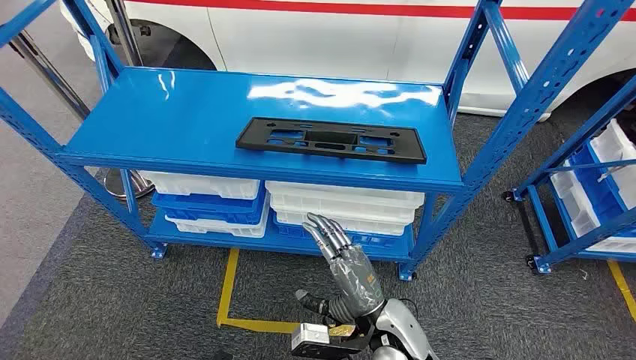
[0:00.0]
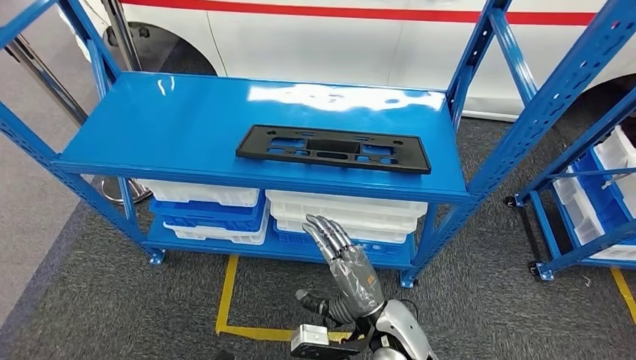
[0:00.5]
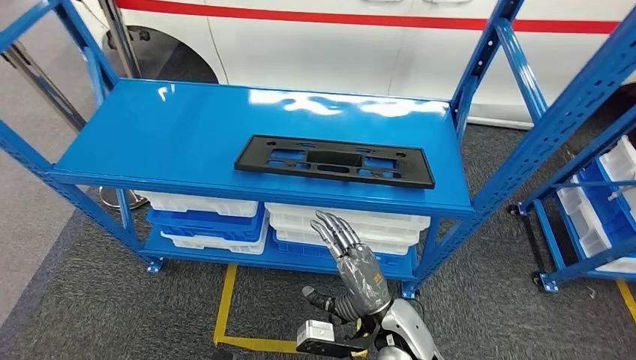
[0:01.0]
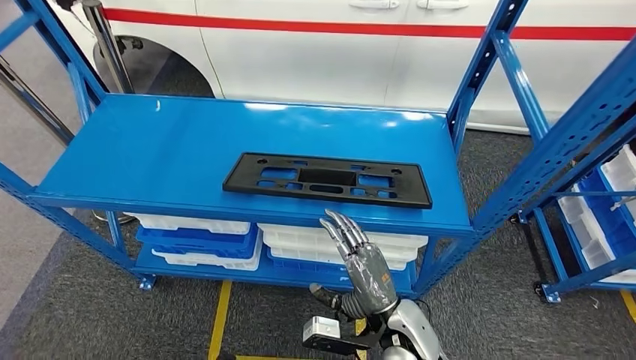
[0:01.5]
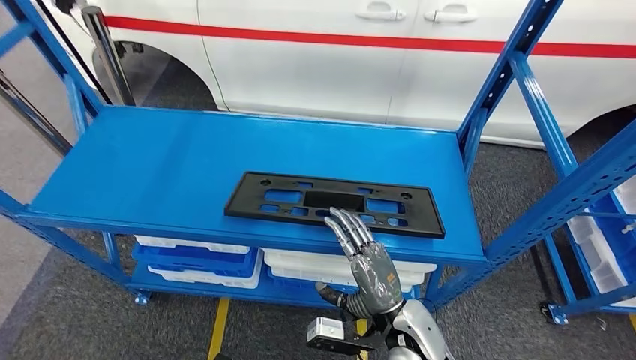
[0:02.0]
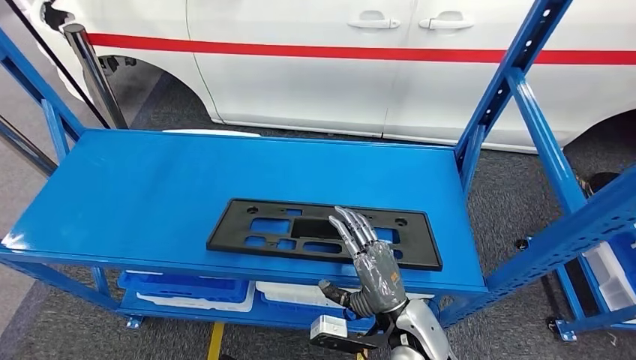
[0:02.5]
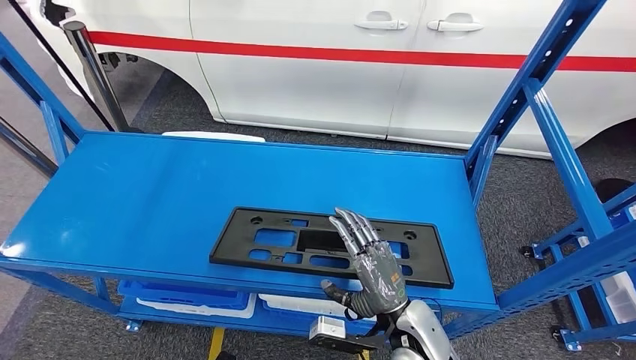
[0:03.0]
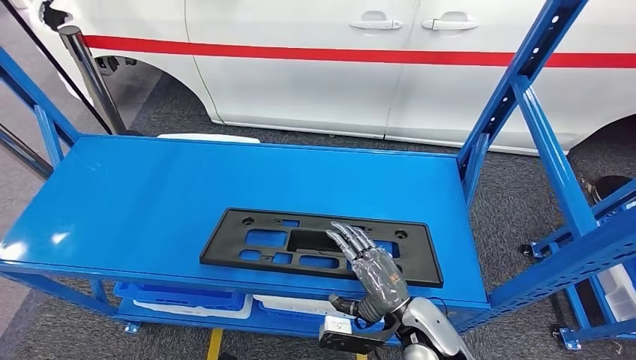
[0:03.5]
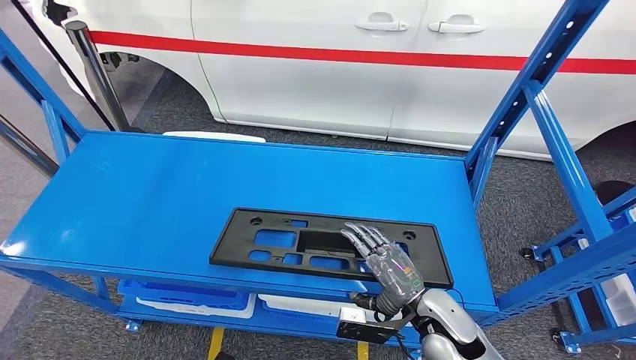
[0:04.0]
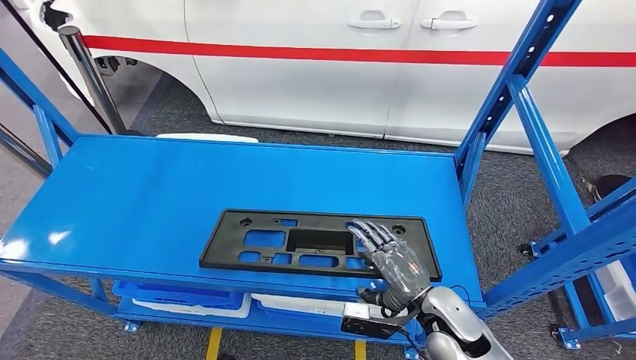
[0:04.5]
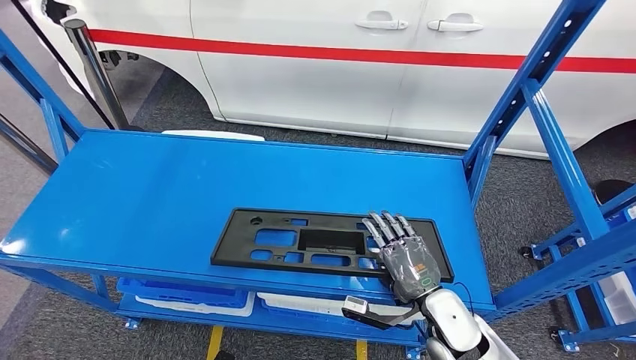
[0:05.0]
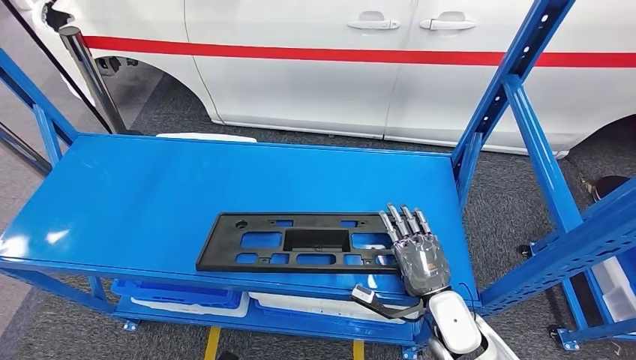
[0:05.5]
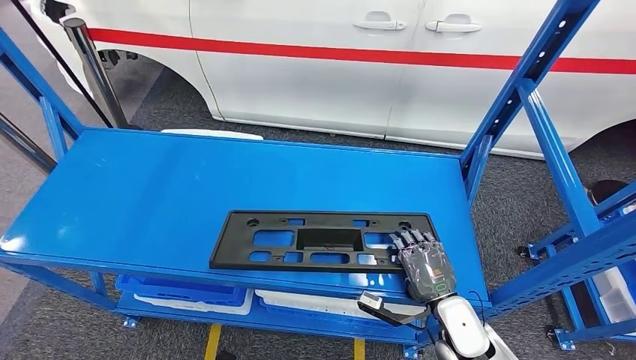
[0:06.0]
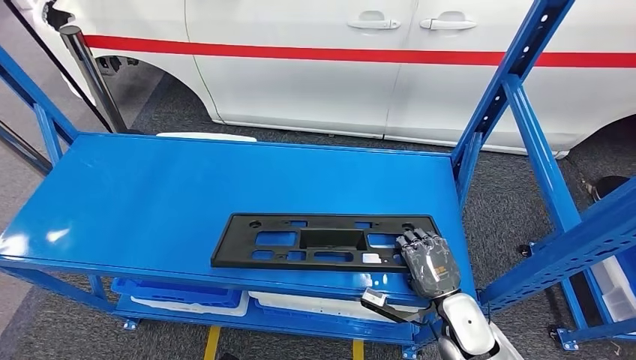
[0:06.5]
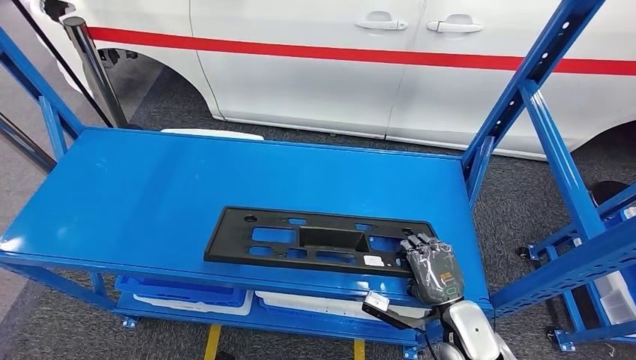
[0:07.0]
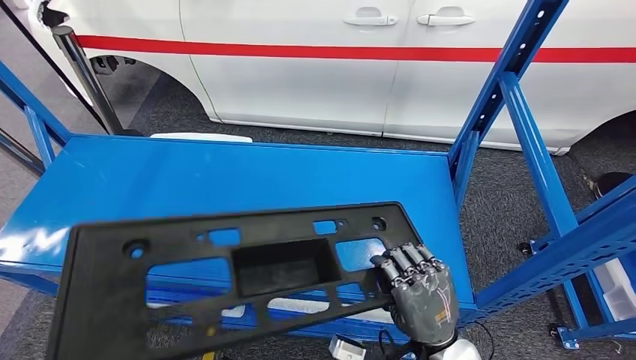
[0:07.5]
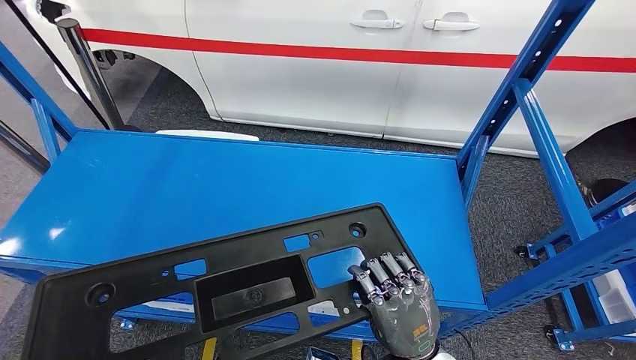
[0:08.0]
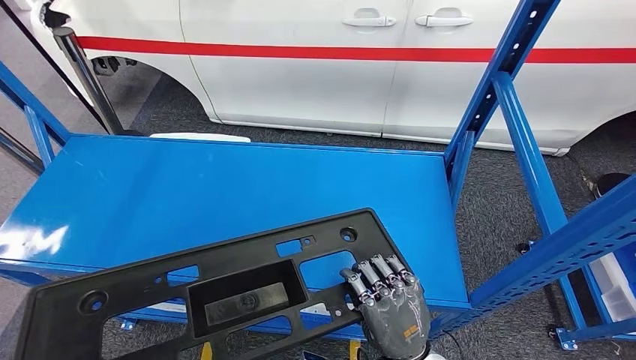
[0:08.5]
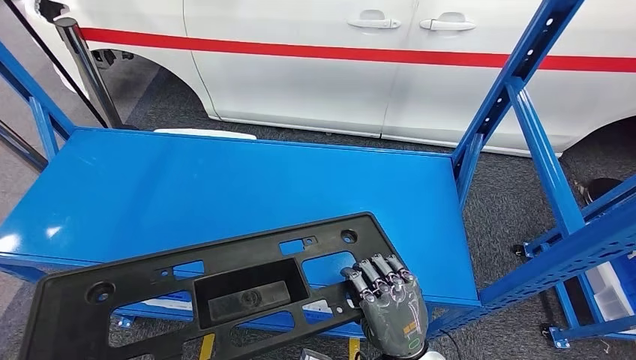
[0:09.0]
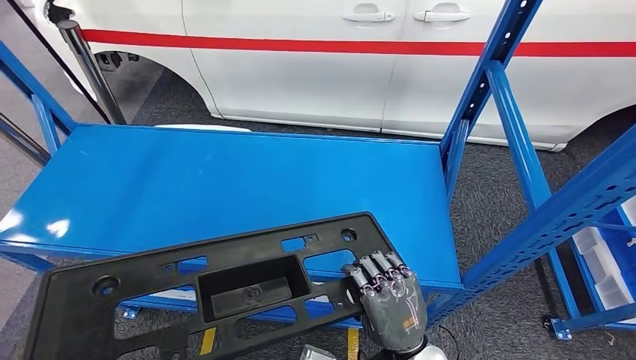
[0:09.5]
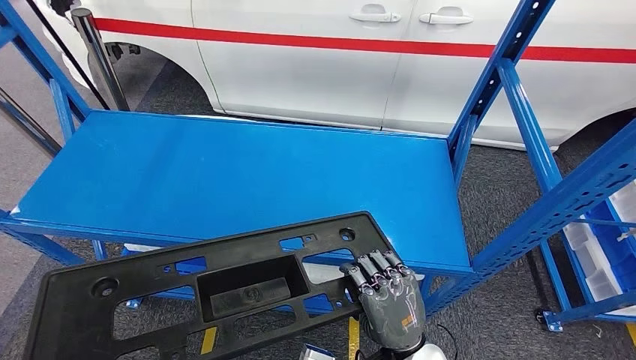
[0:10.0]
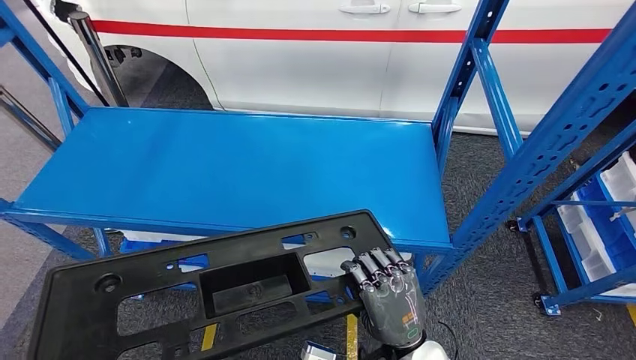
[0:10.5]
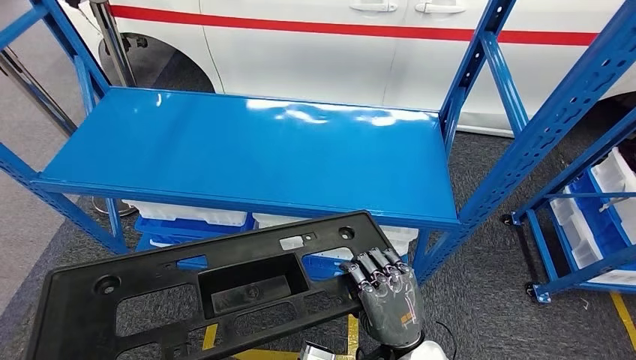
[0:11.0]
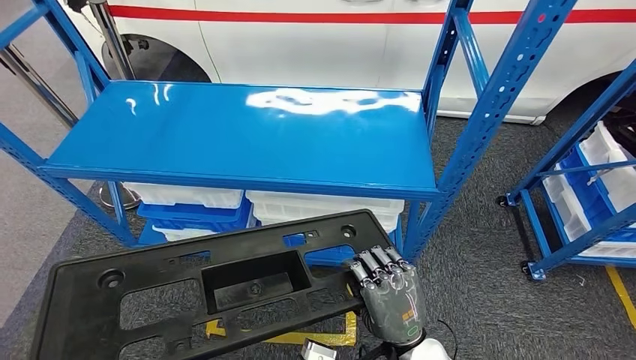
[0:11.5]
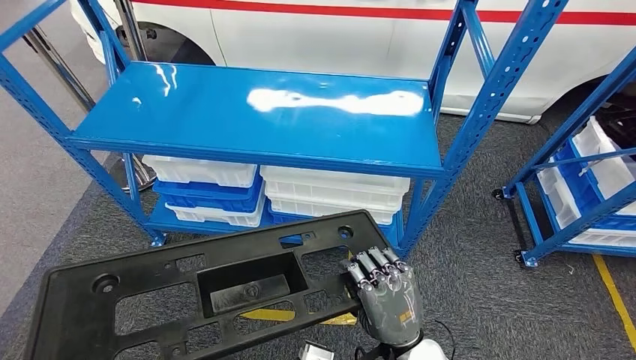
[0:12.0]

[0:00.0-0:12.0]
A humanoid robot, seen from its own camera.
Step, 0:00.0 to 0:10.5: Pick up the large material from the shelf.
0:04.0 to 0:06.0: The right hand changes place by approximately 5 cm.

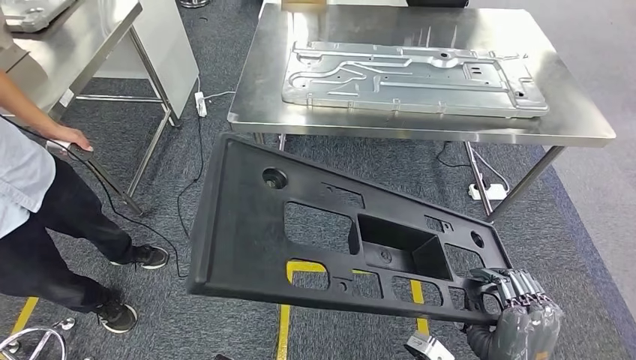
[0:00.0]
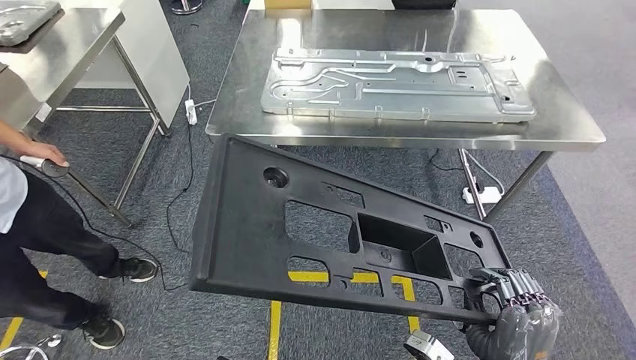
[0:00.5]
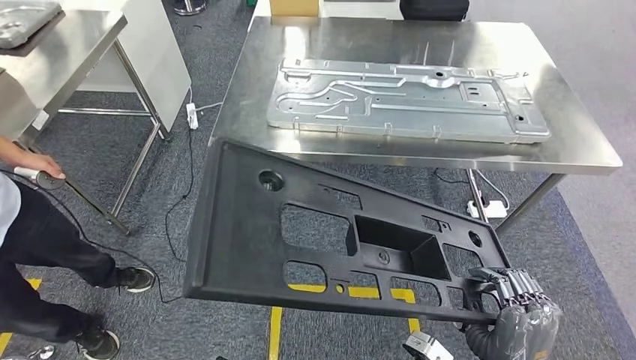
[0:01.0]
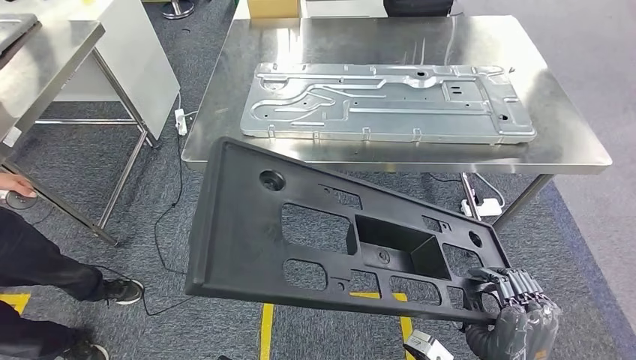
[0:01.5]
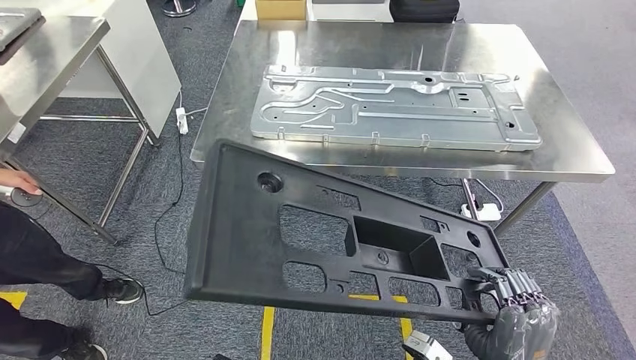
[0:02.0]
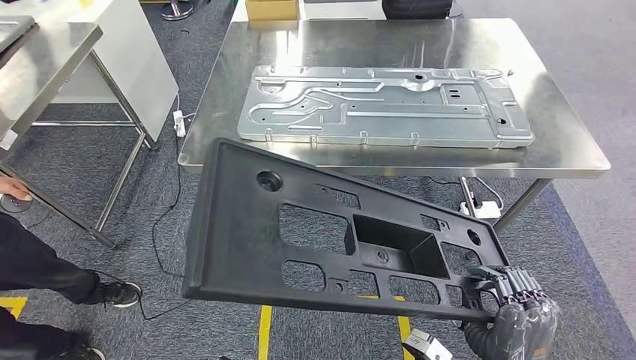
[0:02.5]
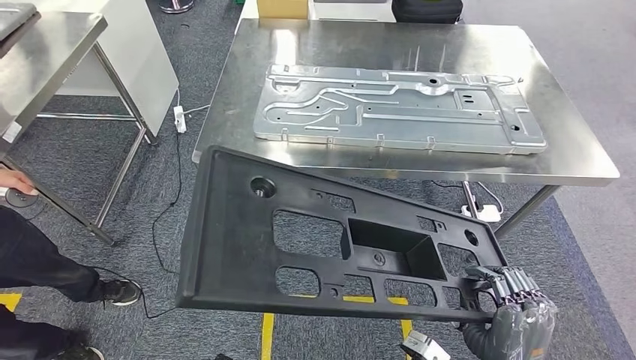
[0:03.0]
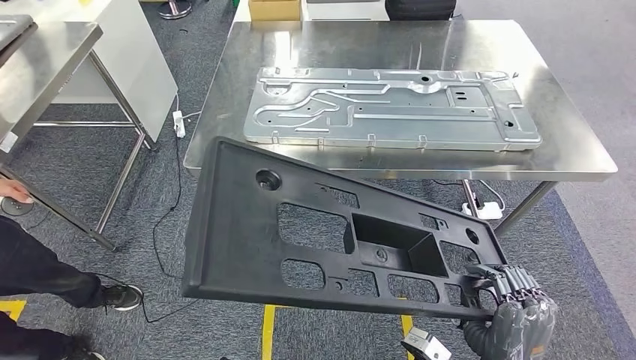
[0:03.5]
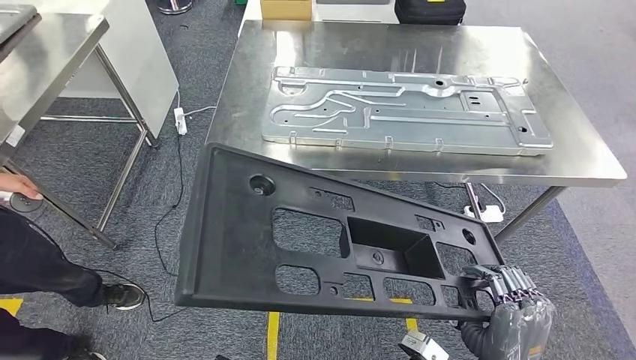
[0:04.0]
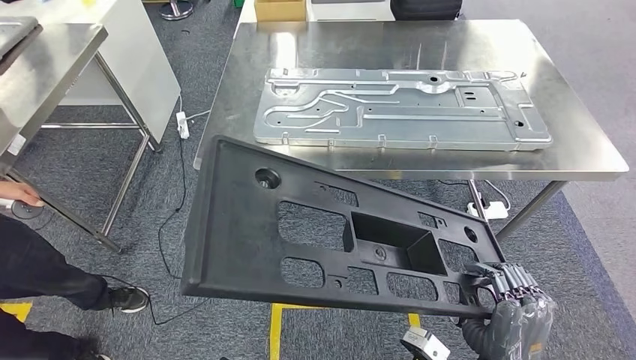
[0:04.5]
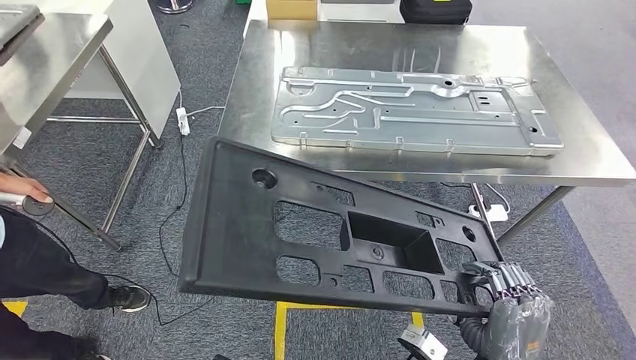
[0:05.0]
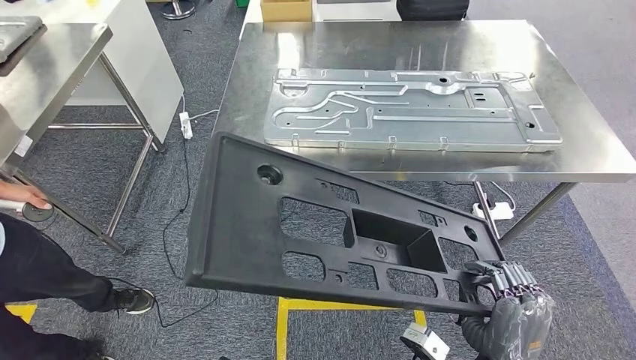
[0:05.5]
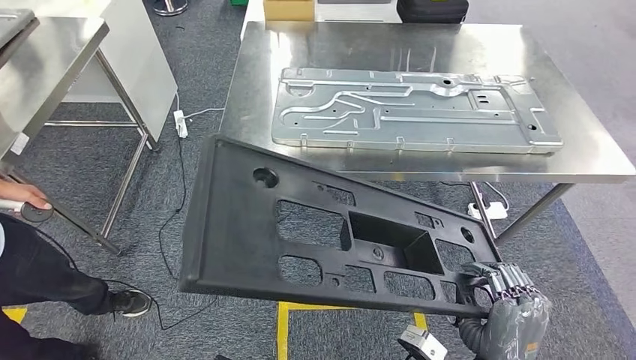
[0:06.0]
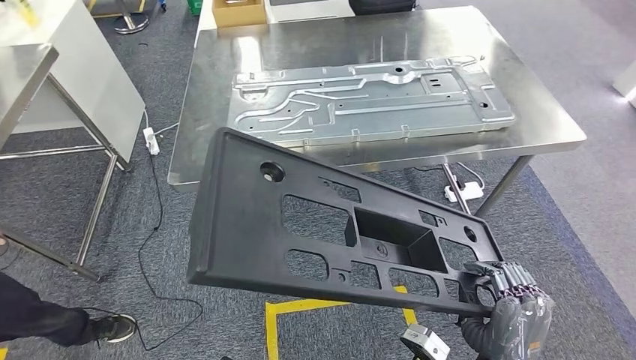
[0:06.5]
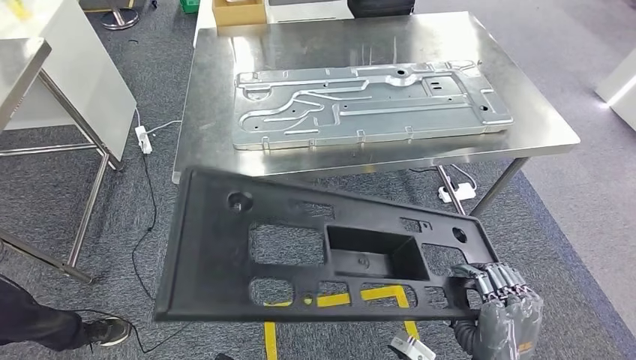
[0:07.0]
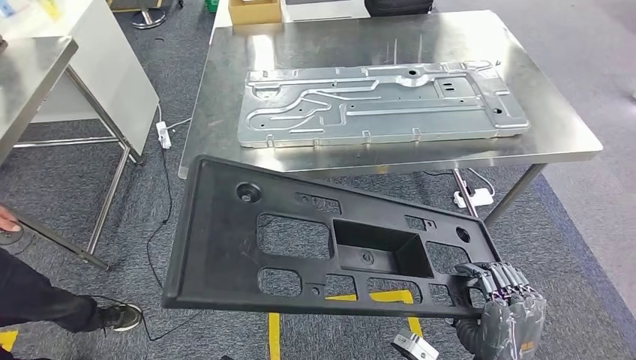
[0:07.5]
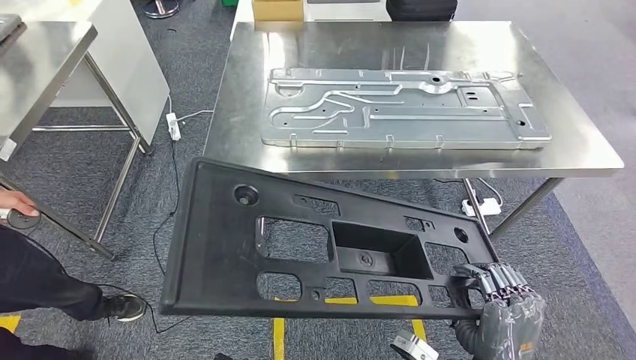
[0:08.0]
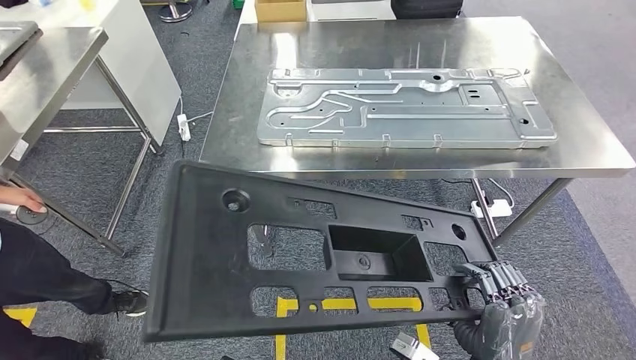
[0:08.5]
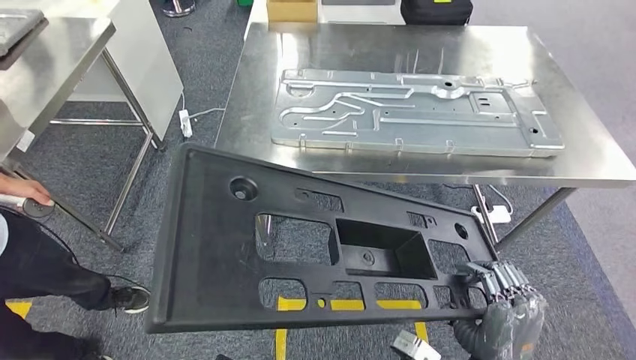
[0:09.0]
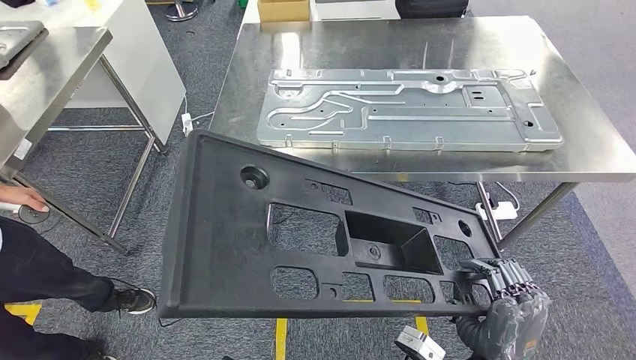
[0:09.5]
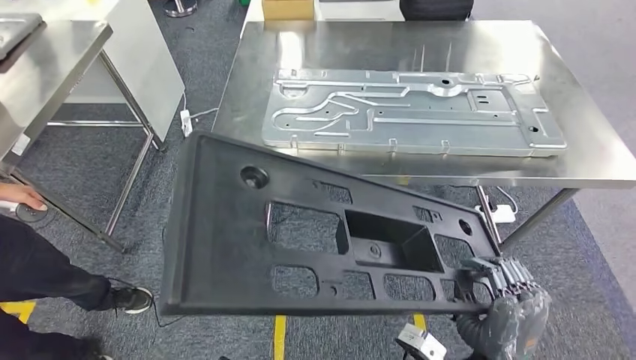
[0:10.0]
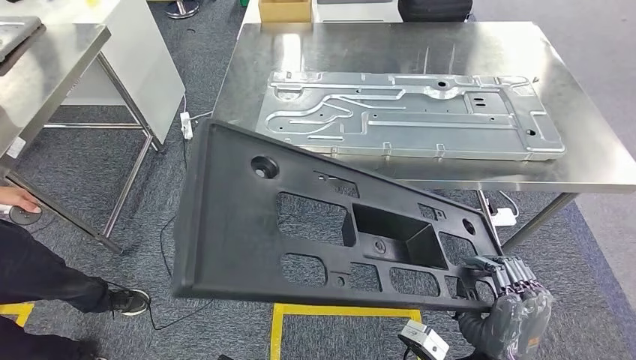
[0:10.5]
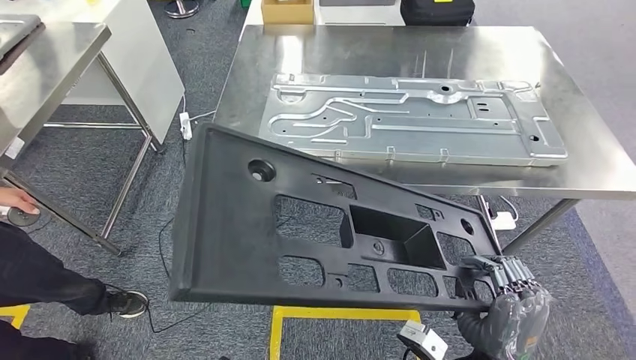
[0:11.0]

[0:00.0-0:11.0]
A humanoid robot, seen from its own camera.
Step, 0:00.0 to 0:07.0: Move the large material to the workbench.
0:02.0 to 0:03.5: Both hands stay about where they are.
